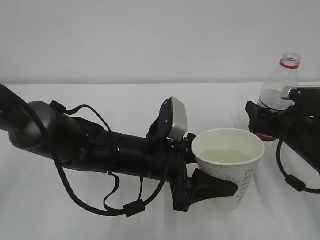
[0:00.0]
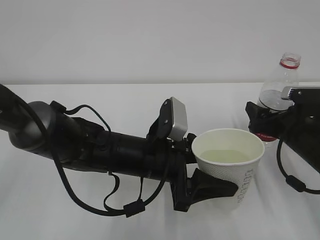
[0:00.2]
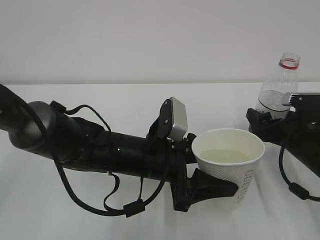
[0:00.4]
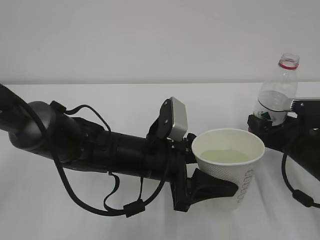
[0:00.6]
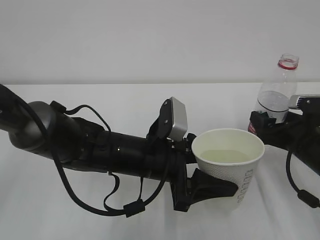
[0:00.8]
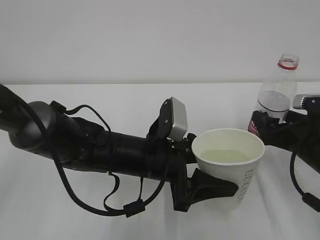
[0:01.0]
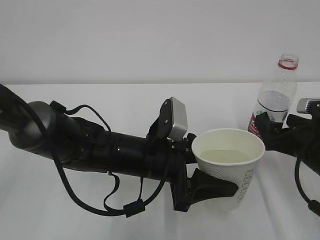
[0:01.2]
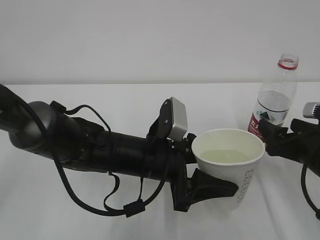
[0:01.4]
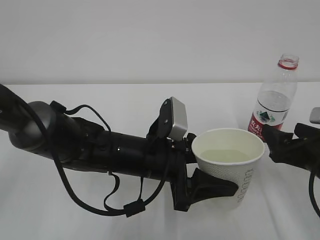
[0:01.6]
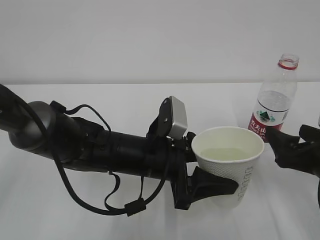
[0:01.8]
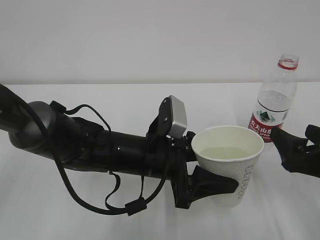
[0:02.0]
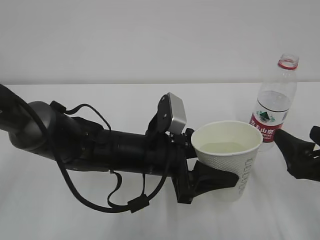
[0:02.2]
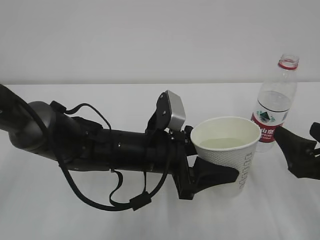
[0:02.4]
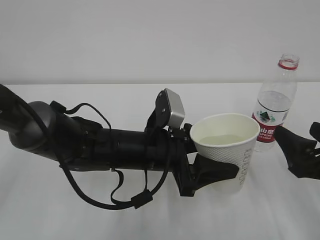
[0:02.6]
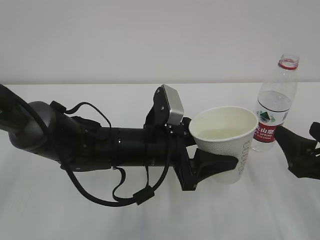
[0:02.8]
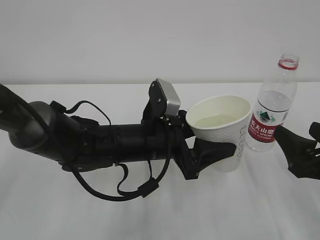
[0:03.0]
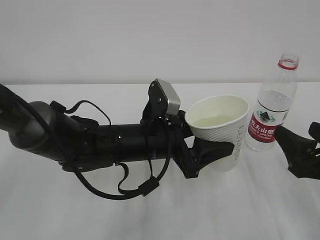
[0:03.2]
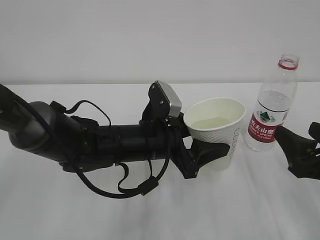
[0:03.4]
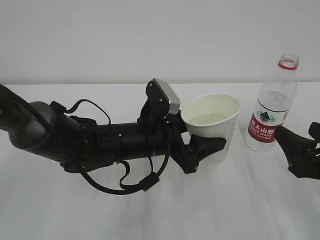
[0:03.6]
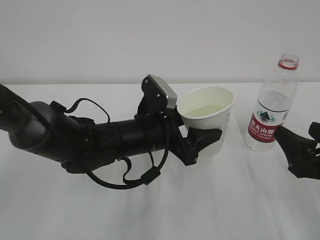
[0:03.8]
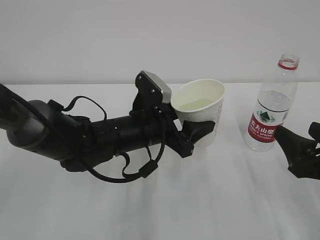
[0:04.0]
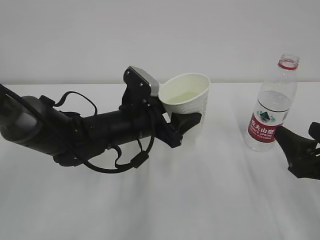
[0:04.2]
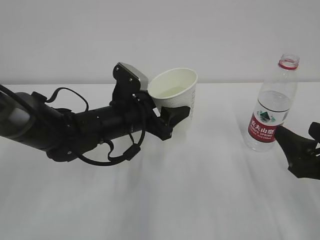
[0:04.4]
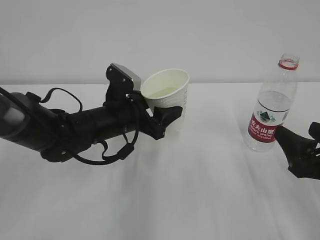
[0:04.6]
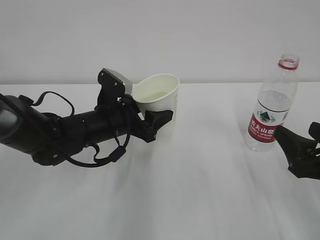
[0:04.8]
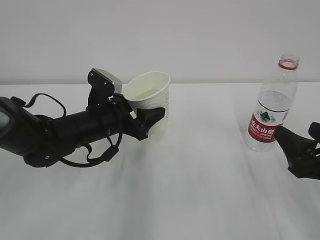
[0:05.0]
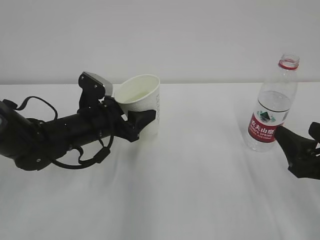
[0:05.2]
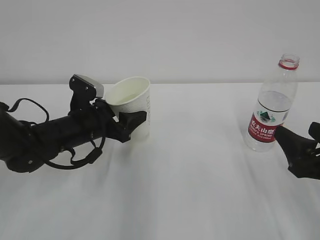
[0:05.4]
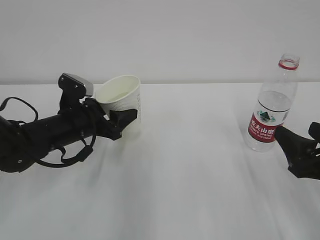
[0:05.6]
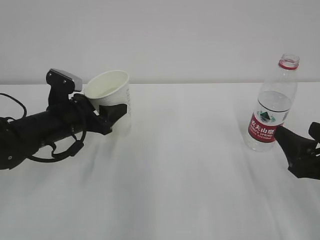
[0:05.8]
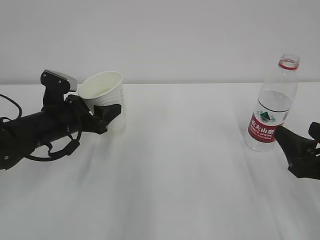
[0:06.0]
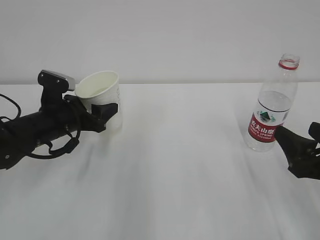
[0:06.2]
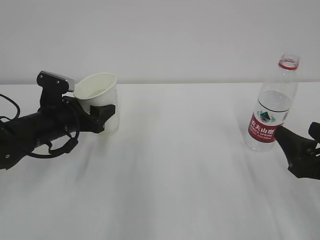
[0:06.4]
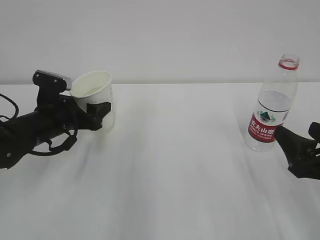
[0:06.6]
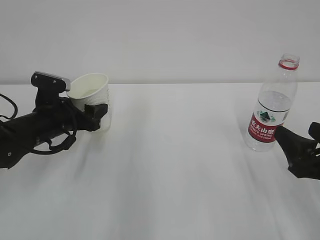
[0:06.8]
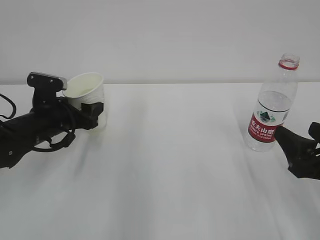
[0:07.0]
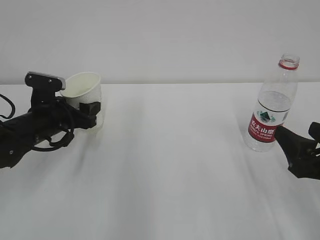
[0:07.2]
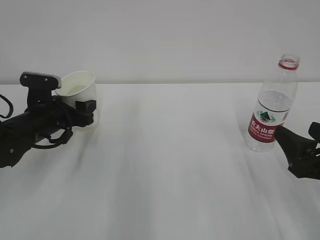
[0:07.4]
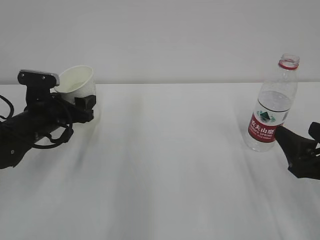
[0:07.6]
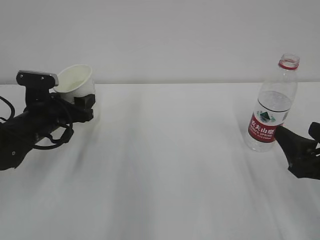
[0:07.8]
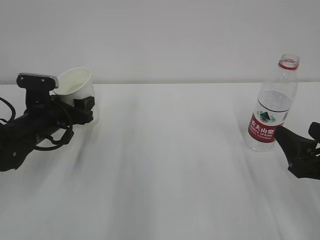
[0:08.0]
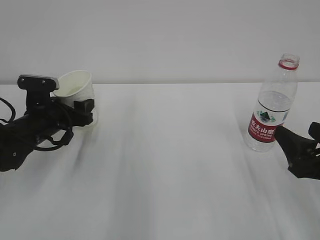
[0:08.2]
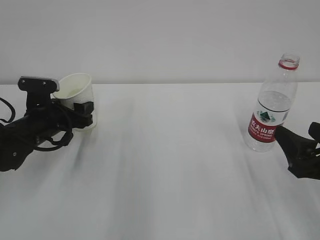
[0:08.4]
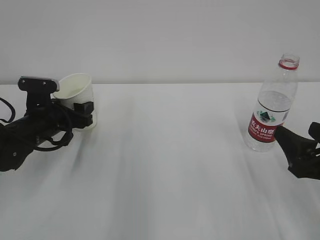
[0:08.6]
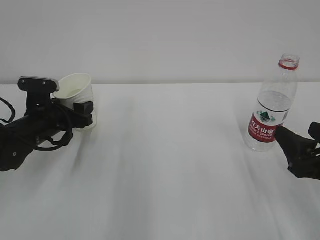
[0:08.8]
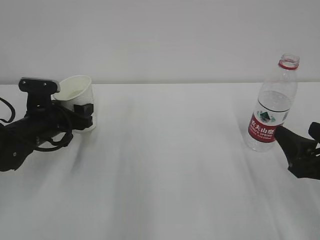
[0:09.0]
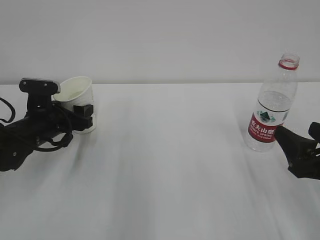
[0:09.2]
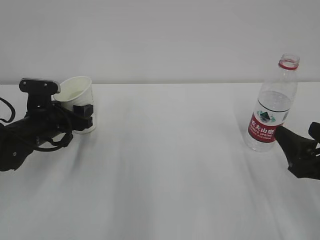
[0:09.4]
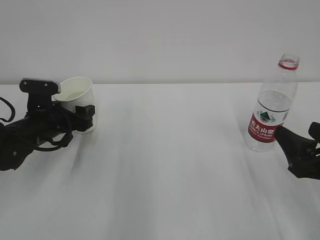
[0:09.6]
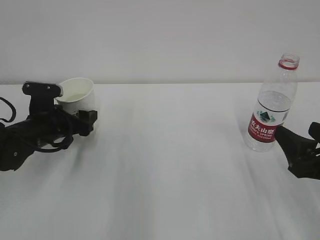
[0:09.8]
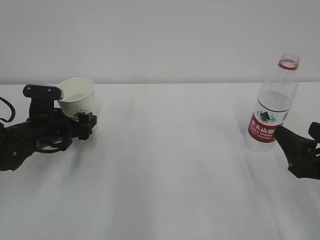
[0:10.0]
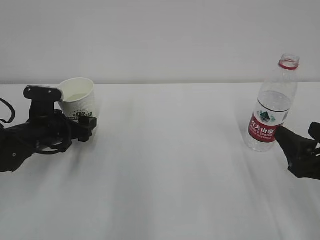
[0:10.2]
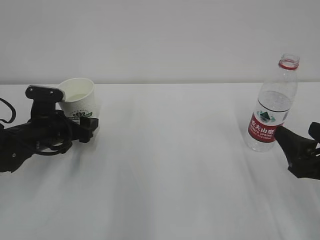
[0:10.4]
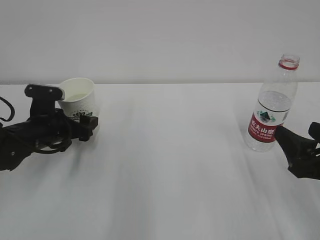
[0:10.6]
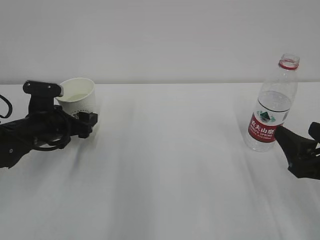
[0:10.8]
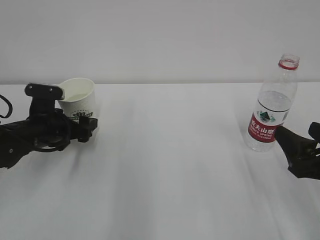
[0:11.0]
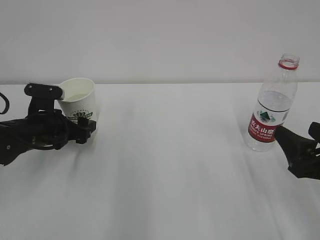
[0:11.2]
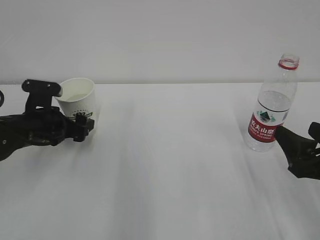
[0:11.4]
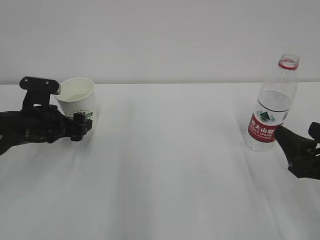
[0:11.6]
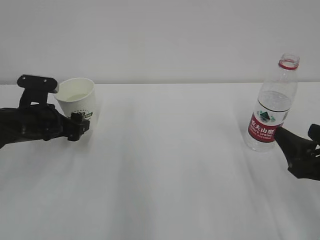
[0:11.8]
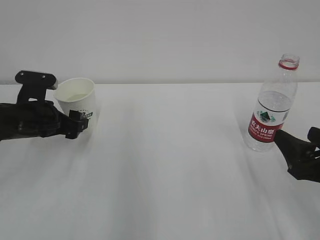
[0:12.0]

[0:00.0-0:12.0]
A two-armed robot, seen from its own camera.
0:00.0 to 0:01.6: The right gripper goes some 10 cm backward.
0:01.6 to 0:03.0: The right gripper changes place by some 5 cm.
0:03.0 to 0:04.4: The left gripper is displaced forward by some 5 cm.
0:04.4 to 0:06.0: The left gripper goes approximately 10 cm to the left.
0:06.0 to 0:07.6: The grippers stay close to where they were, moving slightly.
0:07.6 to 0:09.0: The grippers move only a little.
0:09.0 to 0:10.4: The left gripper opens up.
0:10.4 to 0:12.0: The left gripper is displaced upward by some 5 cm.

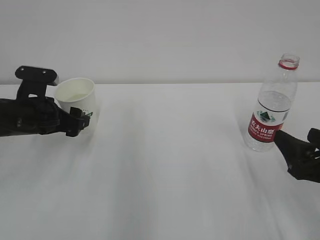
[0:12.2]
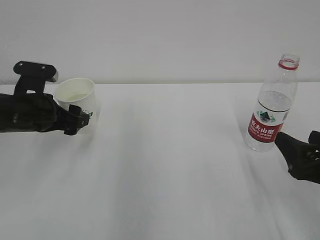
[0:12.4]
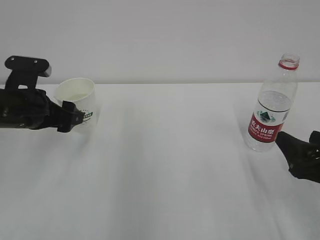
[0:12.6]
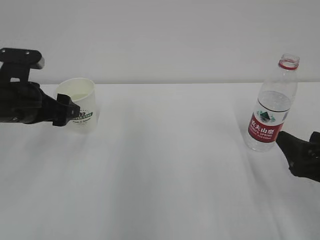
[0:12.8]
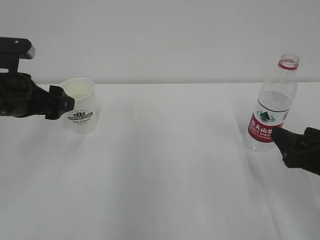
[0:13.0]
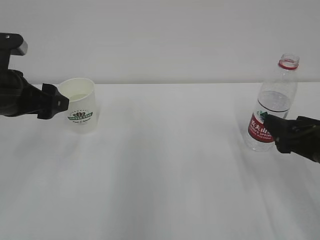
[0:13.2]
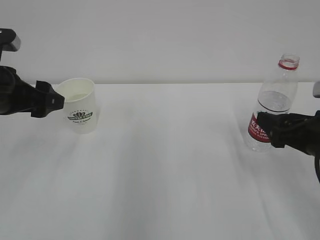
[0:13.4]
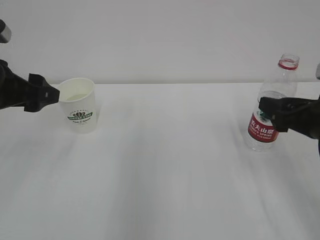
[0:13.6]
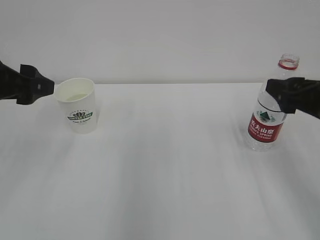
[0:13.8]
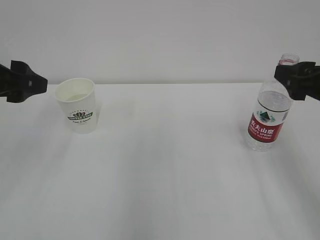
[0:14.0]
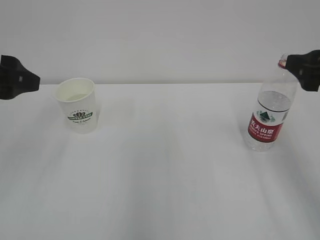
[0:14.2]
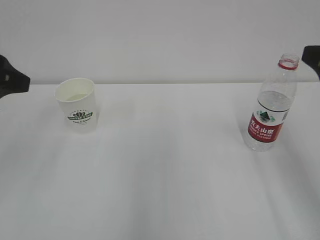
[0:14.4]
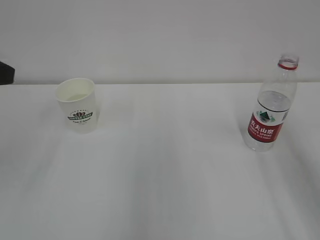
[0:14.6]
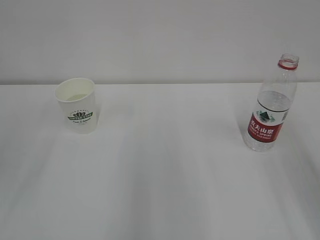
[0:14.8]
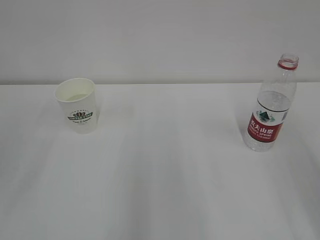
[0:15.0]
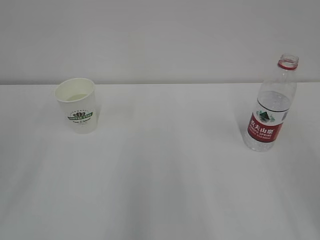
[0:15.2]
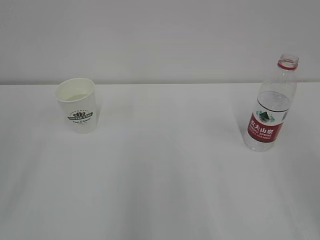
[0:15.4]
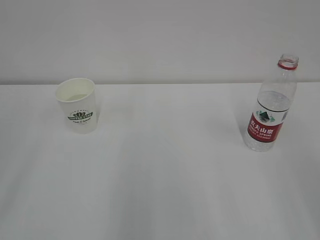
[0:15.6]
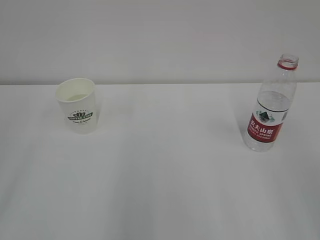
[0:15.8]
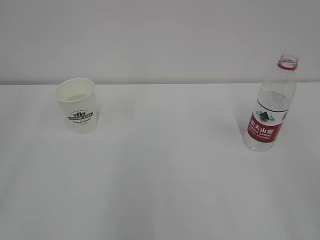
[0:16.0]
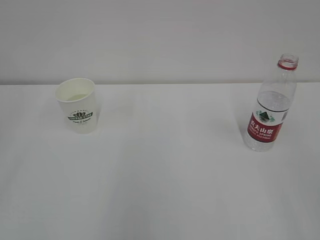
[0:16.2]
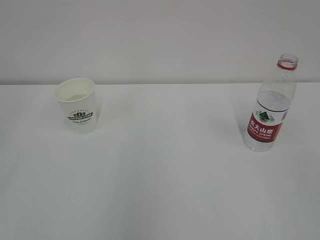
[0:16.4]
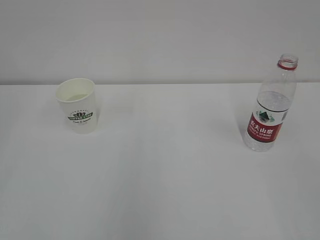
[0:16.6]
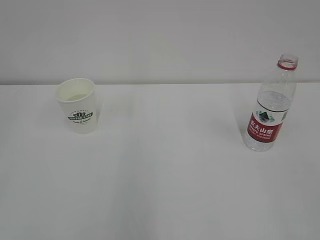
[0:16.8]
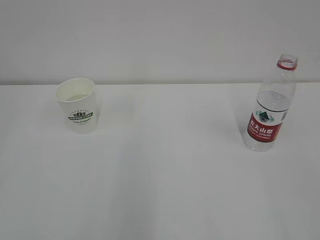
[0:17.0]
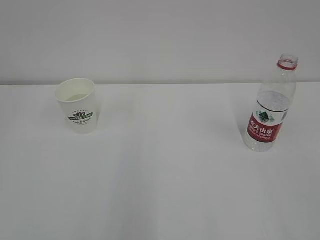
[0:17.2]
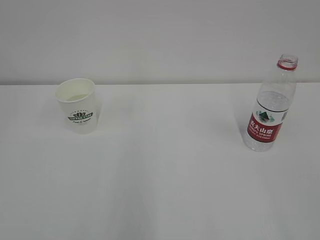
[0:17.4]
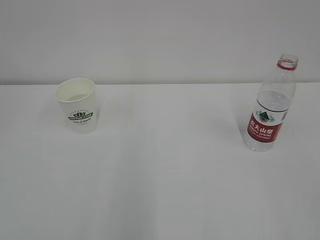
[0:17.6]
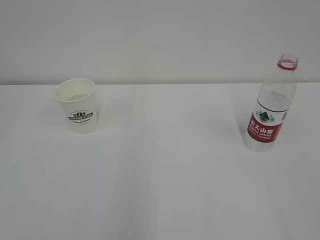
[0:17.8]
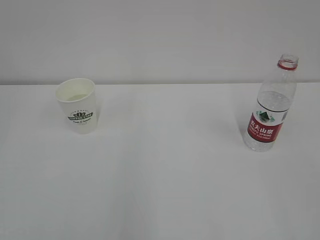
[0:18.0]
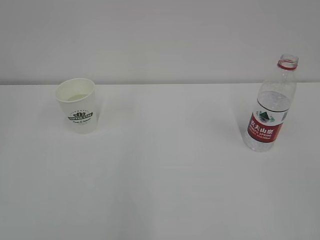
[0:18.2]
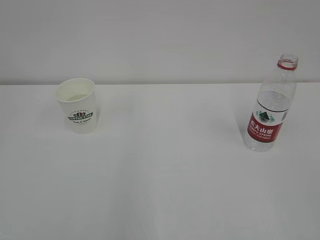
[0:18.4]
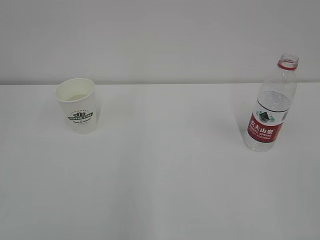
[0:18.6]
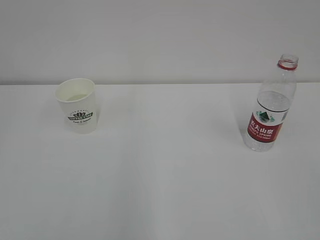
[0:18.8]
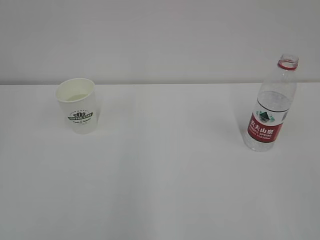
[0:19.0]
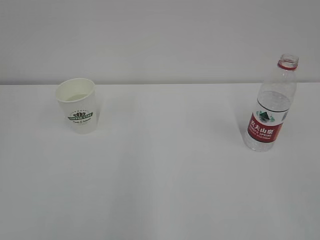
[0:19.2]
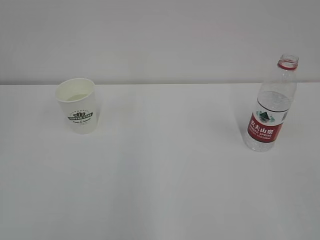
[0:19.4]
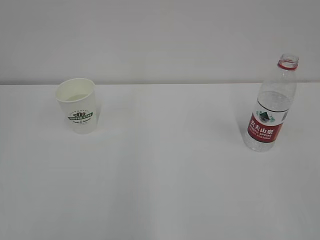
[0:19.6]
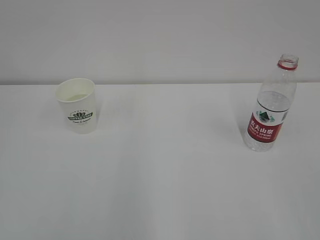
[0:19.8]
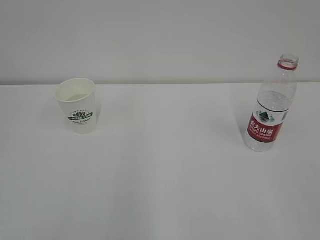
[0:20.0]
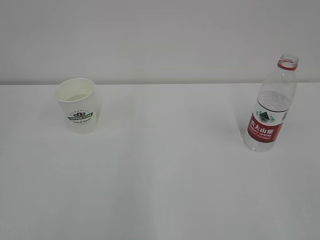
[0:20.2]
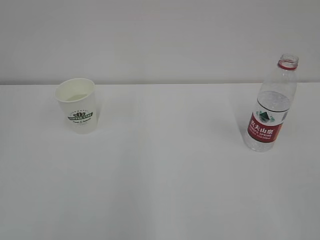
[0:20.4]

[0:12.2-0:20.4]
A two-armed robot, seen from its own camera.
0:12.2 to 0:13.8: The left gripper shifts about 15 cm upward and backward. The right gripper travels upward and forward by roughly 10 cm.
0:13.8 to 0:15.4: The grippers both shift backward and upward by roughly 15 cm.

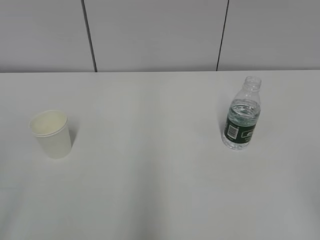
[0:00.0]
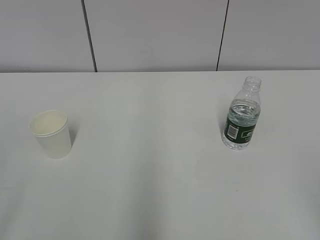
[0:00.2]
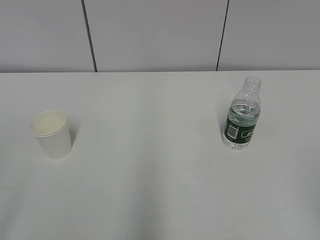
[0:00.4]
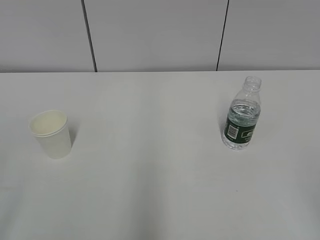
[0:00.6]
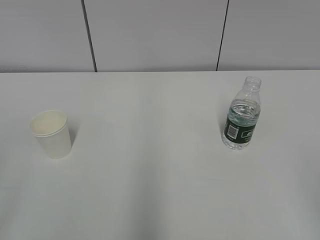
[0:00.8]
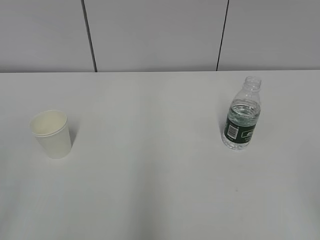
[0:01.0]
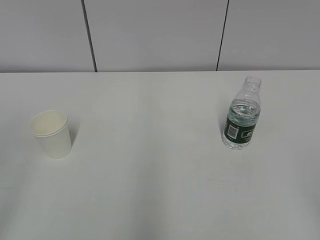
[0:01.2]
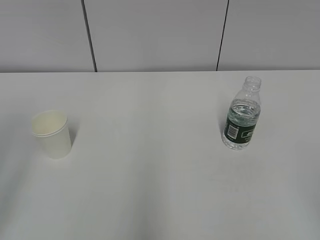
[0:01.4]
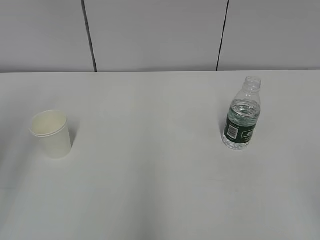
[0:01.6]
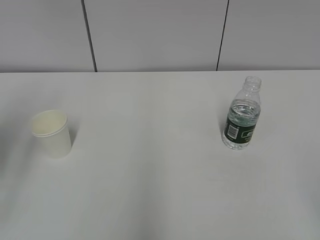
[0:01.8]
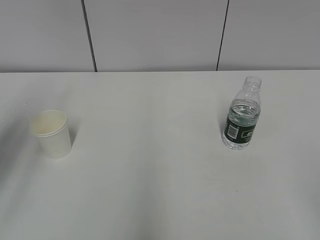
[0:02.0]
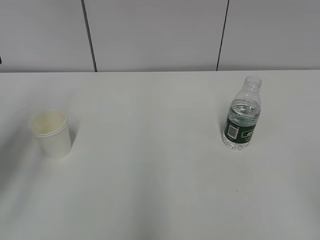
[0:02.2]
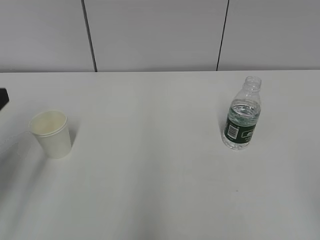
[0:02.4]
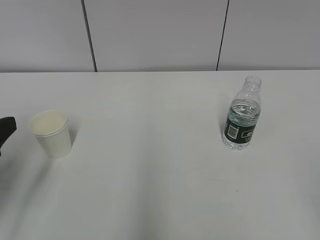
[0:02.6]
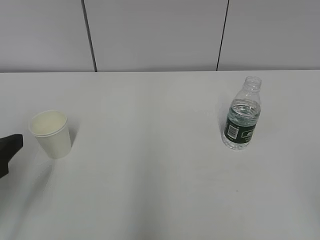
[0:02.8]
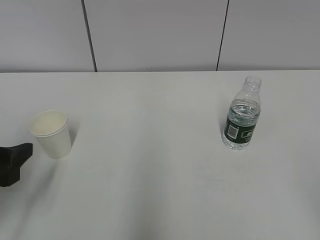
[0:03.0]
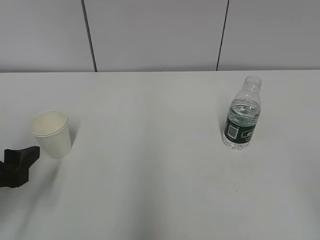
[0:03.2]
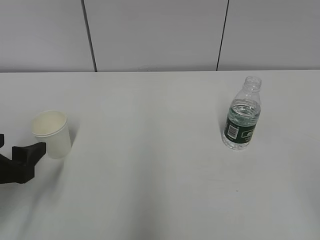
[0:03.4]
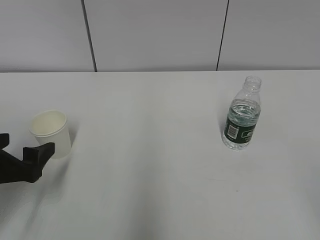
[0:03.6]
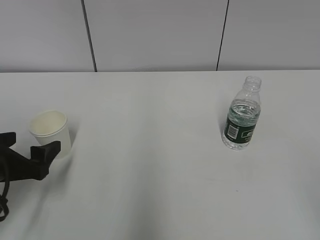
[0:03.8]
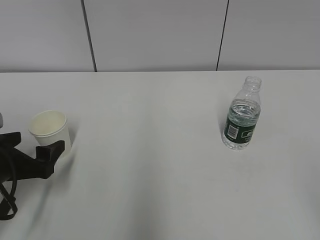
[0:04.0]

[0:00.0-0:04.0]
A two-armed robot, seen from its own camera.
0:01.4 to 0:02.6: The left gripper is displaced downward and forward by about 15 cm.
0:02.6 to 0:04.0: The left gripper heads downward and forward, covering some 10 cm, and opens its fingers.
